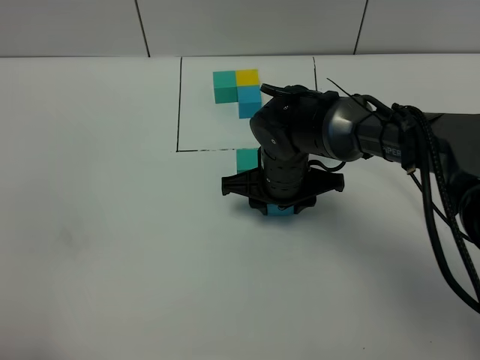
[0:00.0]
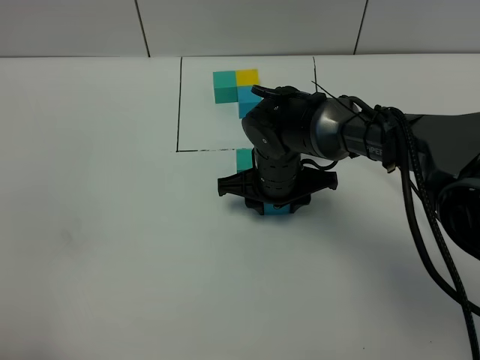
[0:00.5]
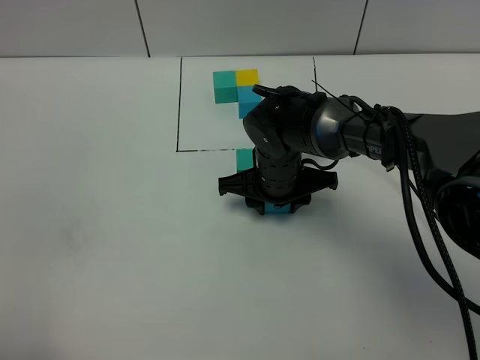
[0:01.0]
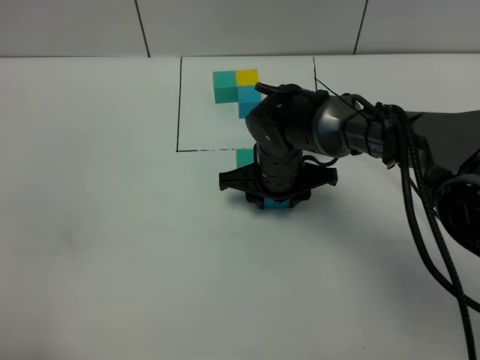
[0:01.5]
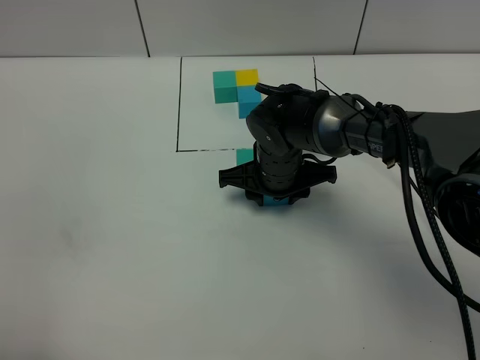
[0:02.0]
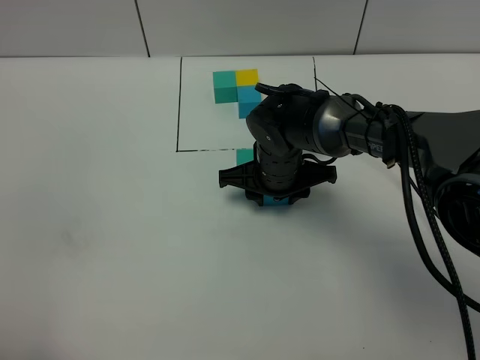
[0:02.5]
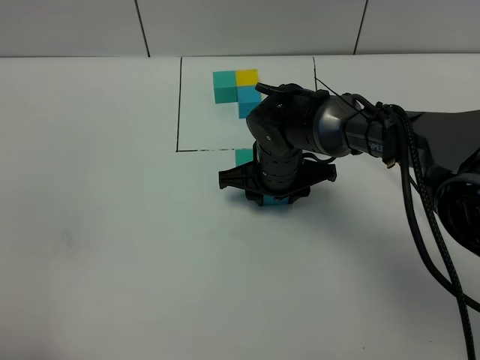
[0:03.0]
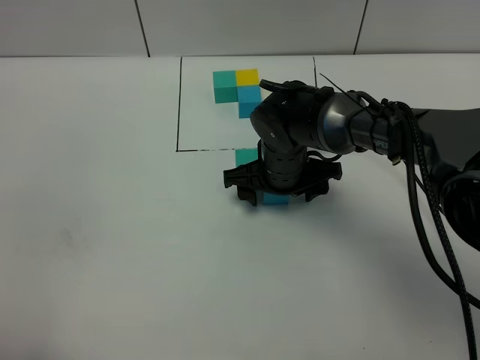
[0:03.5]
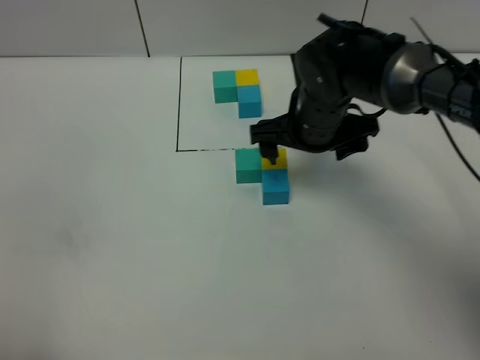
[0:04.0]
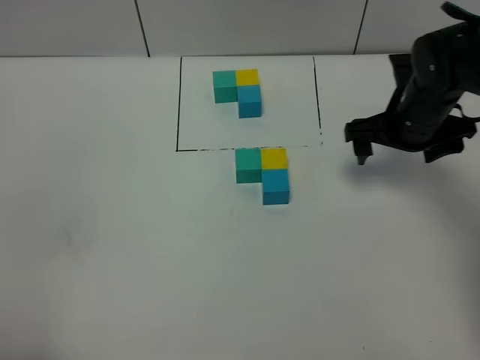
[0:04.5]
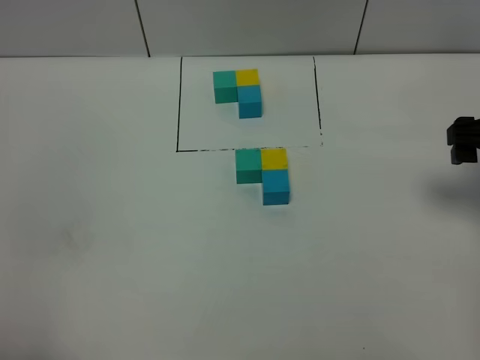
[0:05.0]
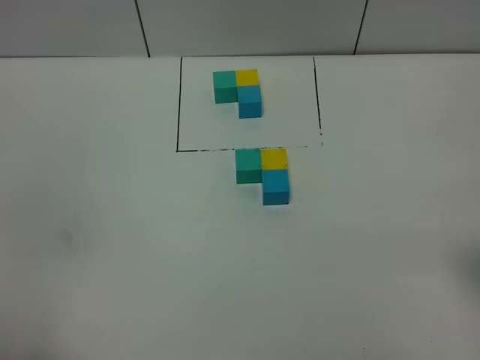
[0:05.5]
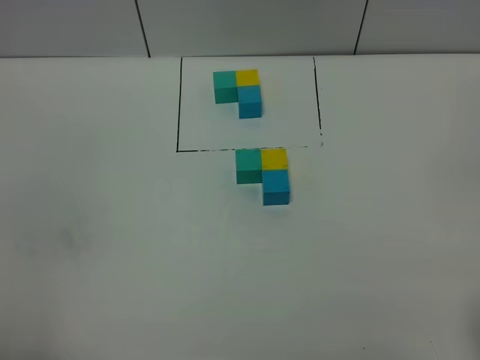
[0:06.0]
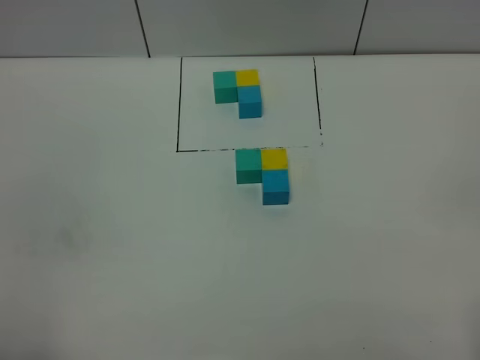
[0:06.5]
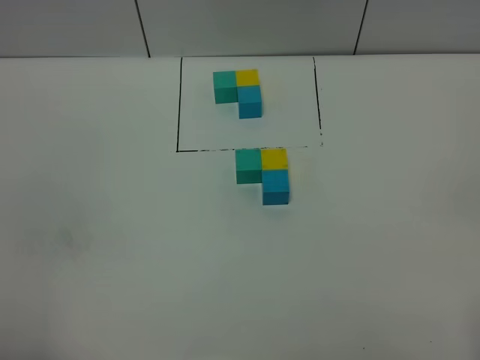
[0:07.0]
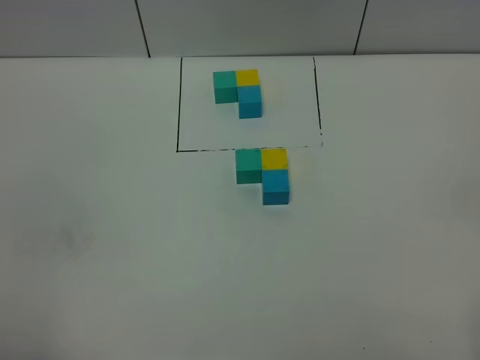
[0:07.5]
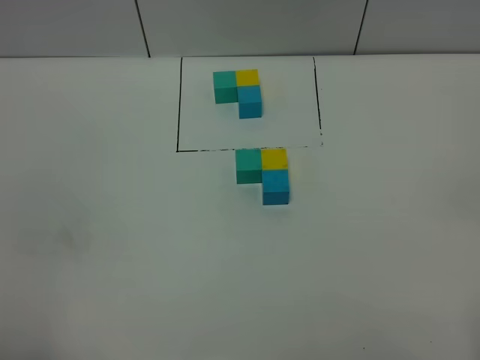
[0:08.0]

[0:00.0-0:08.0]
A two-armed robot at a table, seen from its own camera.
Task of the whole recording: According to the building block template in front, assemble the scattered blocks together.
Step, 0:00.0 to 0:03.0: Put the blue build block on the behind of the yellow build block.
0:00.0 to 0:02.0: The grippers make only small movements.
0:02.0 to 0:04.0: The right gripper shifts roughly 10 cm upward and to the right, and opens its fingers.
0:04.0 to 0:06.0: The right gripper shifts about 40 cm backward and to the right.
